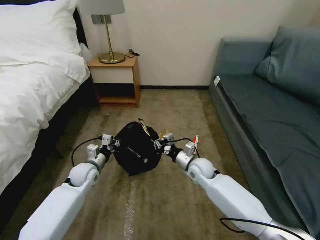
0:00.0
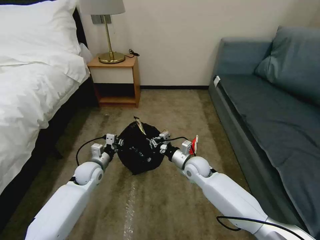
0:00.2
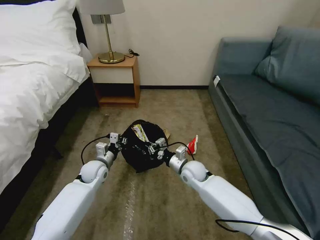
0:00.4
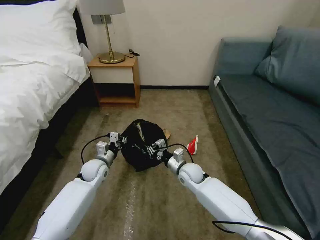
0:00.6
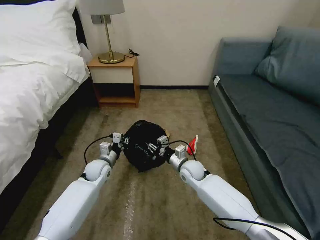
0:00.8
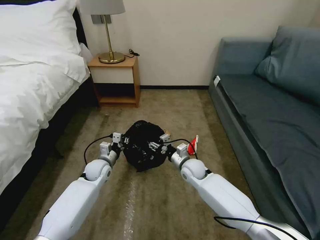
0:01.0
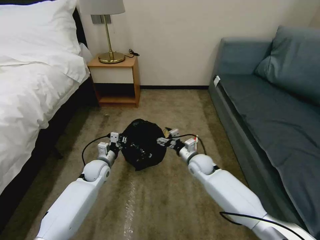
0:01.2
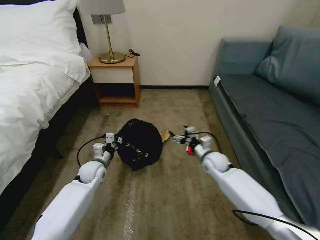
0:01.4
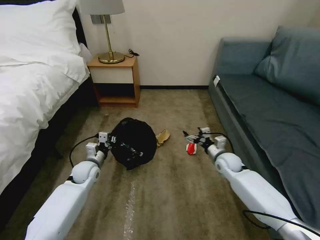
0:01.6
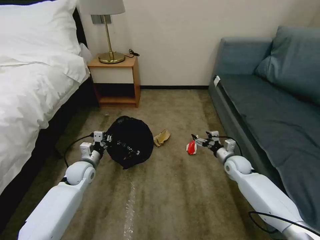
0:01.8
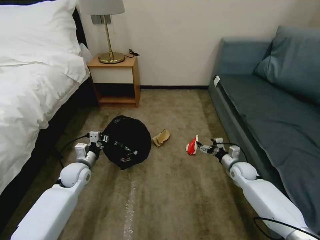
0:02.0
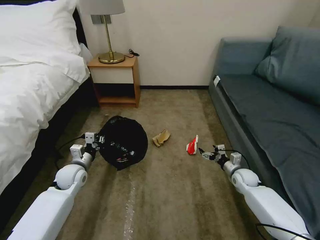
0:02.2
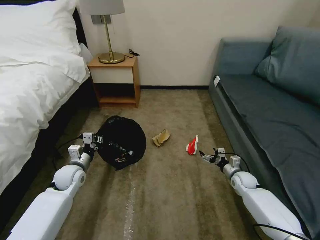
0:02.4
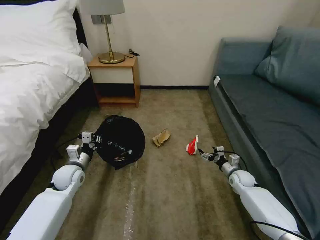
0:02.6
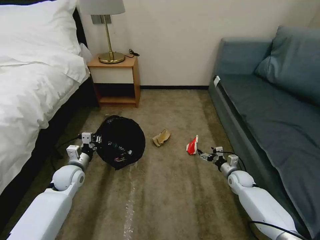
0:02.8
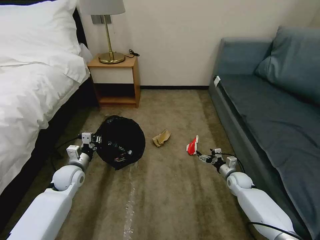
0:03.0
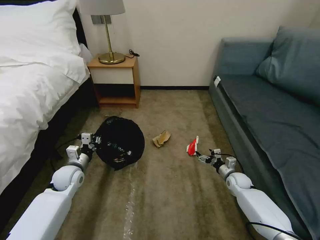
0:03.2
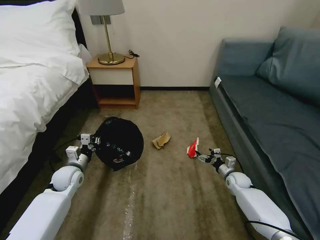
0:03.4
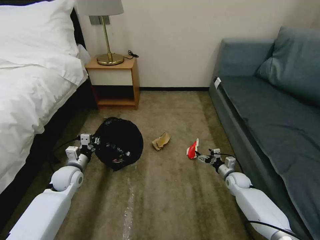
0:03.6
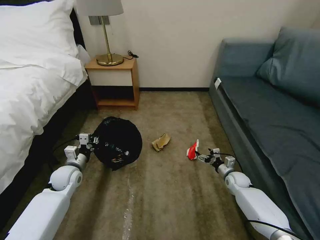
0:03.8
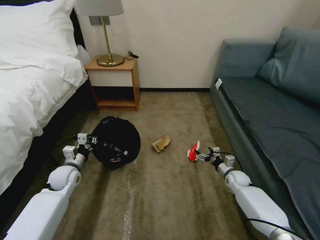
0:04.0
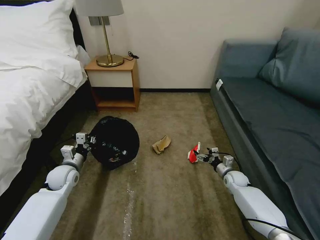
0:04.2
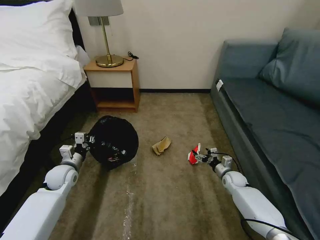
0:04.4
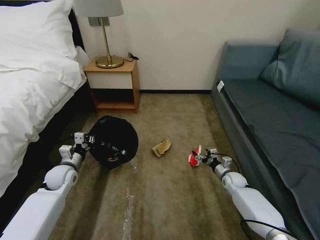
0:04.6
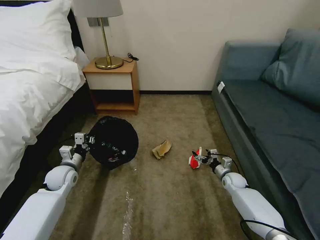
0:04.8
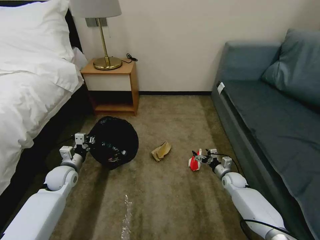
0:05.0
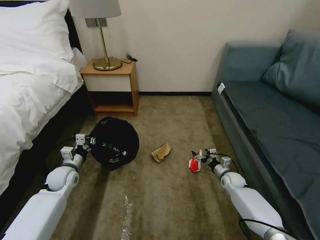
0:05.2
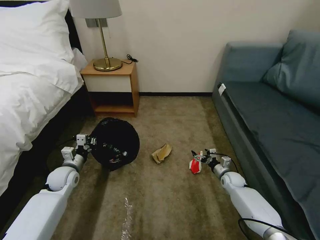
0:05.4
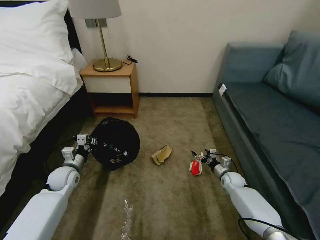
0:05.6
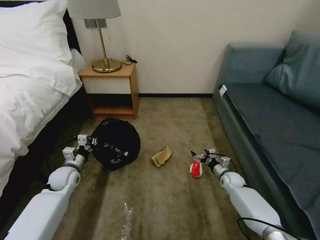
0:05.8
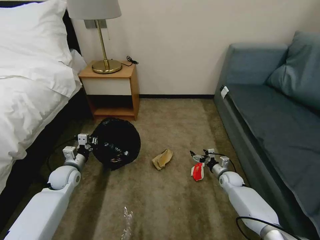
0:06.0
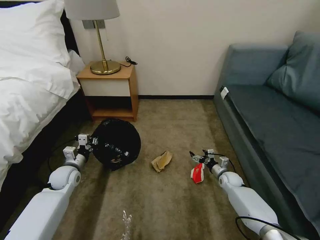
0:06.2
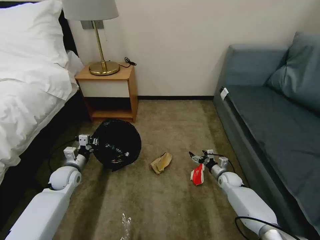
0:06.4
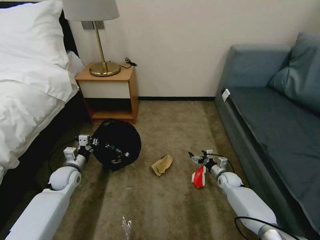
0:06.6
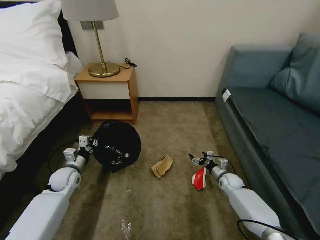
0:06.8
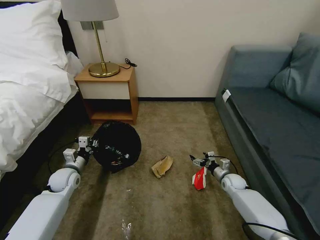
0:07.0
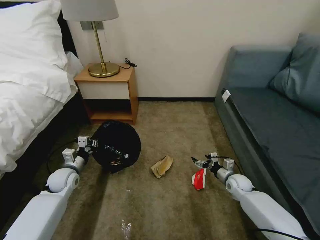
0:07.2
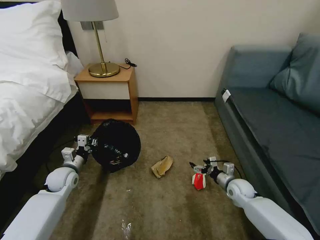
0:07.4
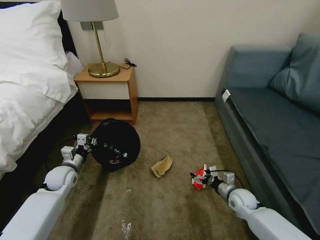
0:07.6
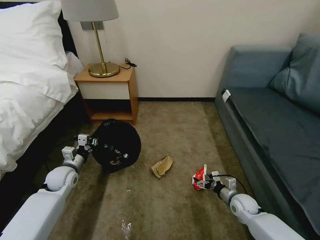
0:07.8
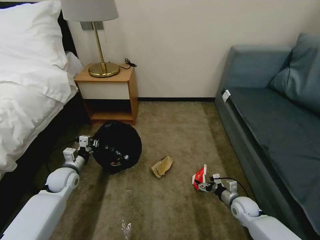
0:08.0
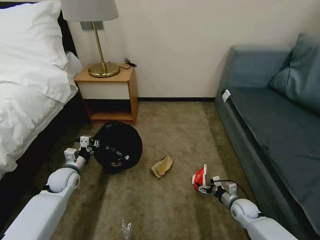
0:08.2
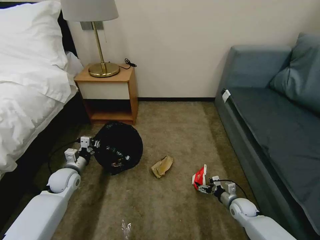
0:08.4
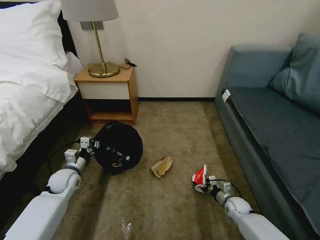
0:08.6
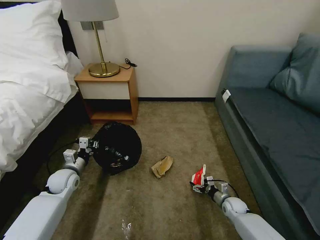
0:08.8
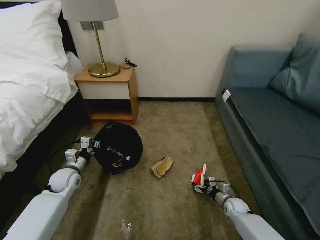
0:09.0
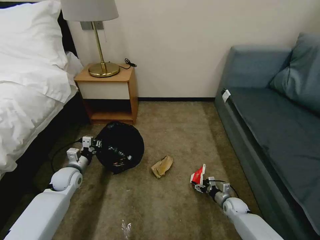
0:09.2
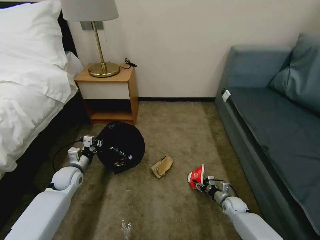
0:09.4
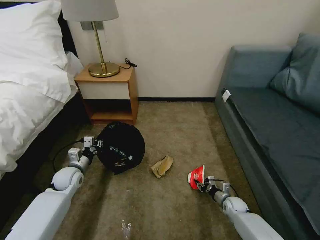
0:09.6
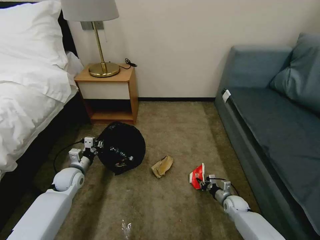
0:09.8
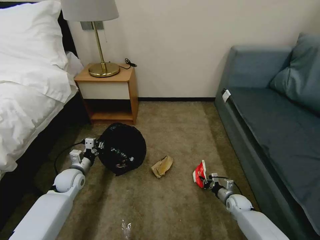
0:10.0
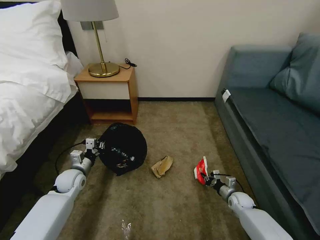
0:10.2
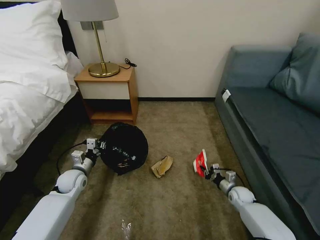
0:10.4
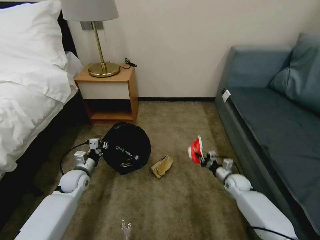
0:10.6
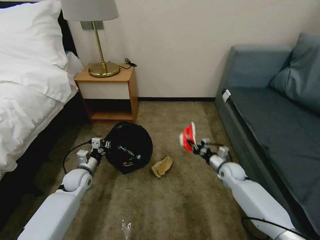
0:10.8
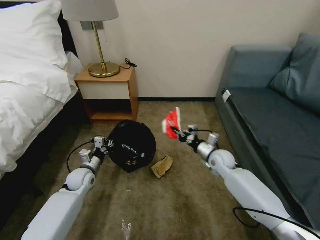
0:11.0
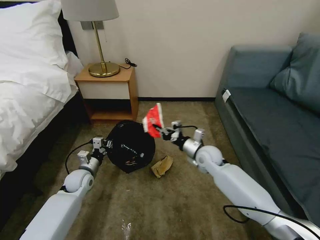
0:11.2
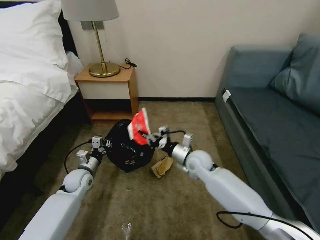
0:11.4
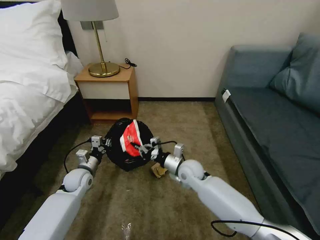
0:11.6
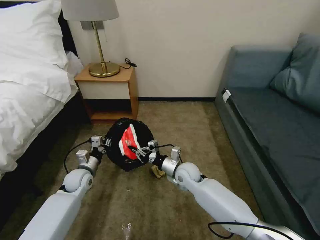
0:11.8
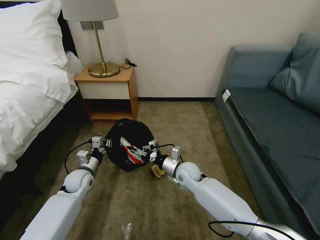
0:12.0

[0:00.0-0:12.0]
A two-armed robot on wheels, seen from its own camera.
Task of the whole recording: Pick up the trash bin, then pick up the garbage on the floor and place it into the trash bin.
0:00.0 to 0:01.6: The right gripper moves to the right, about 10 cm, and opens.
0:01.6 to 0:03.0: The left gripper shifts by approximately 5 cm. The right gripper shifts some 15 cm downward and to the right.
0:03.0 to 0:06.0: The grippers move only a little.
0:06.0 to 0:07.6: The right gripper heads backward, covering roughly 10 cm.
0:07.6 to 0:09.0: The right gripper is displaced downward by roughly 10 cm.
0:09.0 to 0:10.4: The right gripper ends up approximately 5 cm from where it was, and closes its fingers.
0:10.4 to 0:12.0: The right gripper moves to the left and upward, some 30 cm, and opens up.

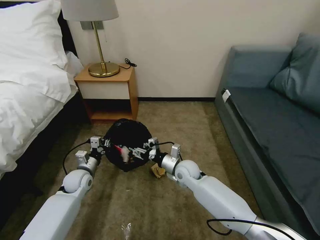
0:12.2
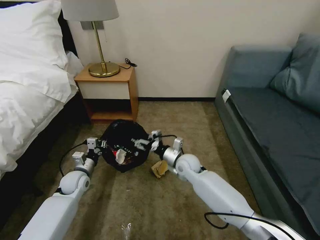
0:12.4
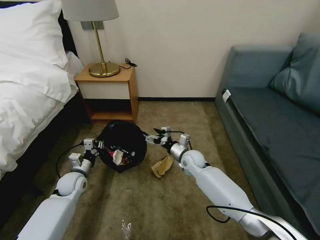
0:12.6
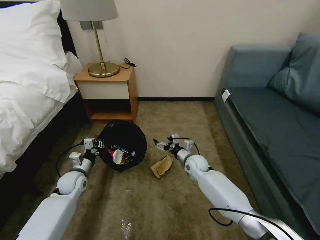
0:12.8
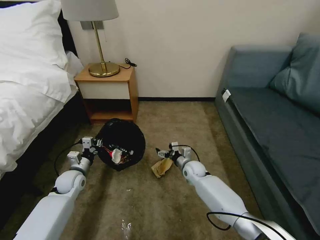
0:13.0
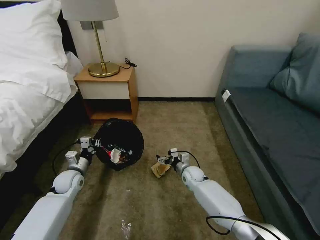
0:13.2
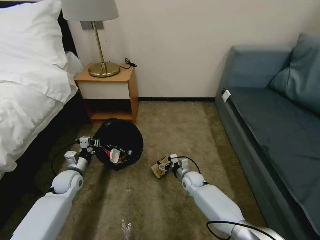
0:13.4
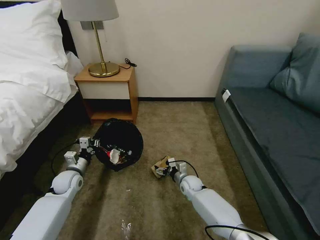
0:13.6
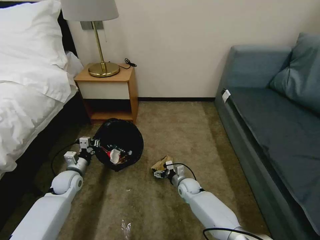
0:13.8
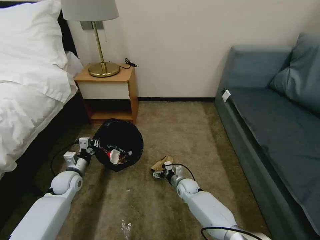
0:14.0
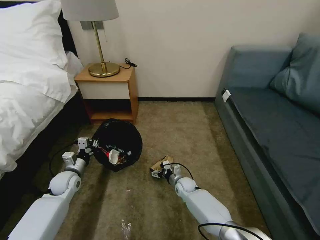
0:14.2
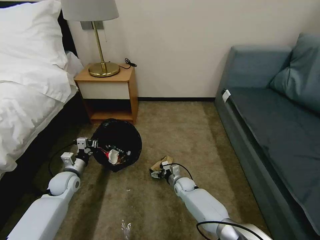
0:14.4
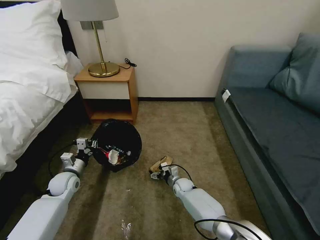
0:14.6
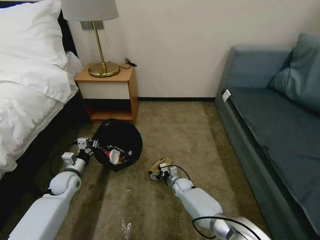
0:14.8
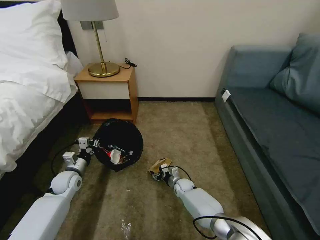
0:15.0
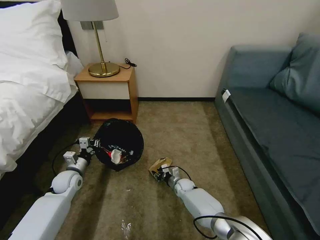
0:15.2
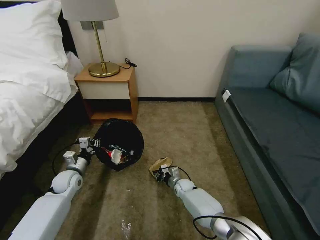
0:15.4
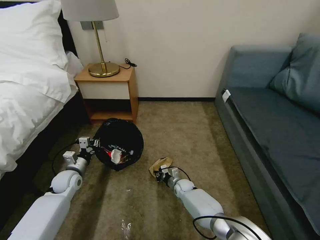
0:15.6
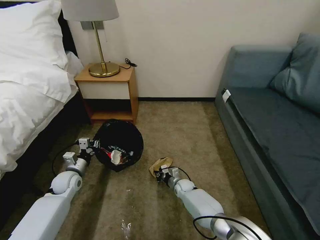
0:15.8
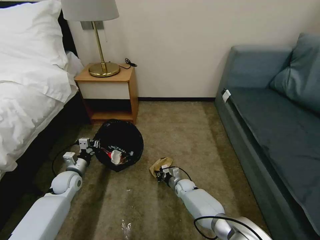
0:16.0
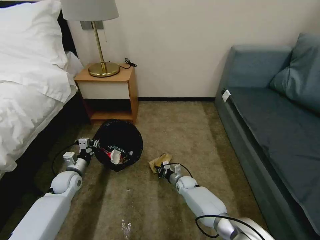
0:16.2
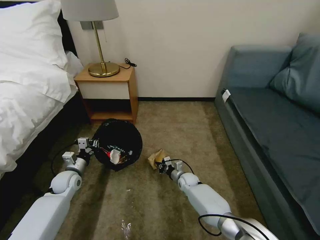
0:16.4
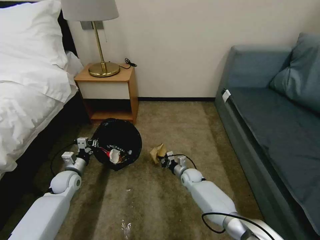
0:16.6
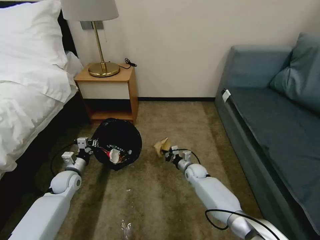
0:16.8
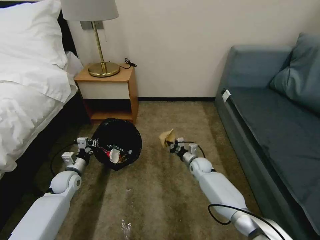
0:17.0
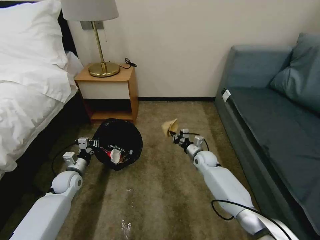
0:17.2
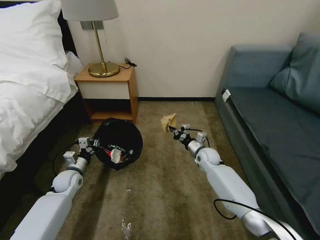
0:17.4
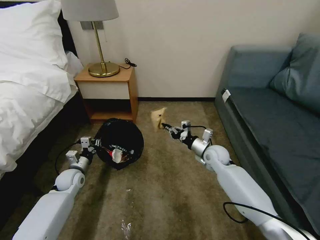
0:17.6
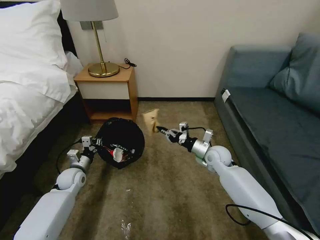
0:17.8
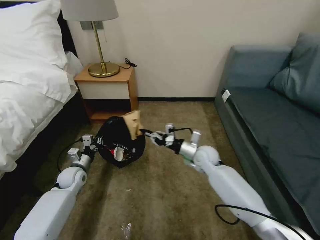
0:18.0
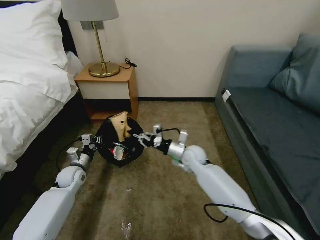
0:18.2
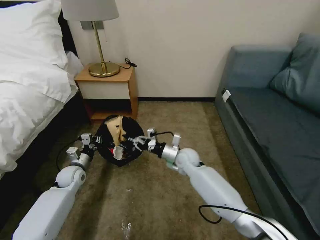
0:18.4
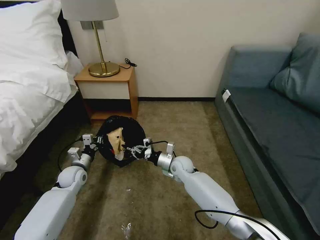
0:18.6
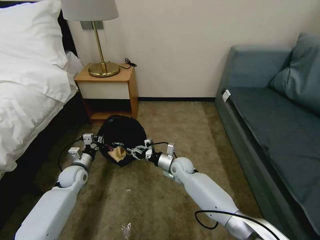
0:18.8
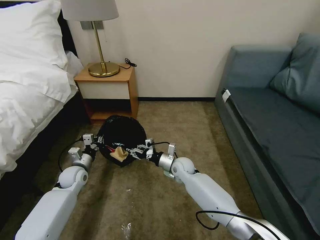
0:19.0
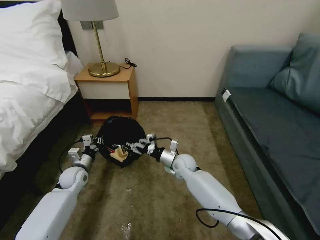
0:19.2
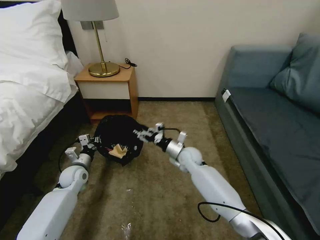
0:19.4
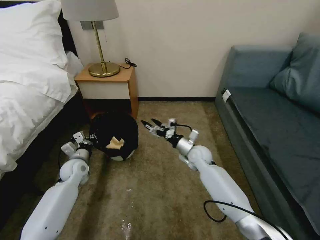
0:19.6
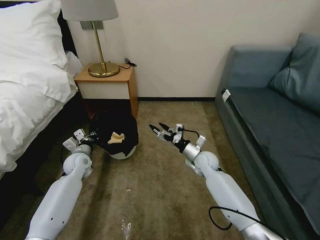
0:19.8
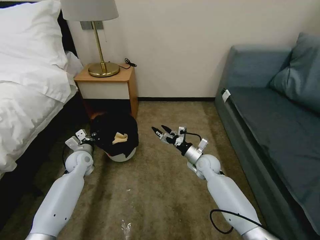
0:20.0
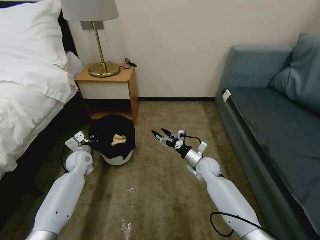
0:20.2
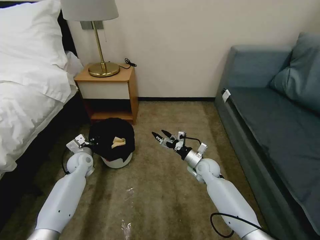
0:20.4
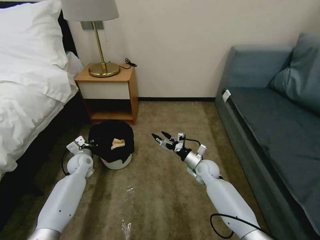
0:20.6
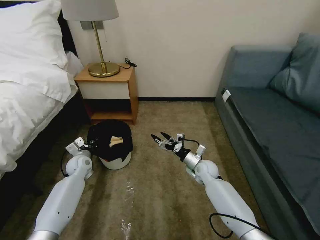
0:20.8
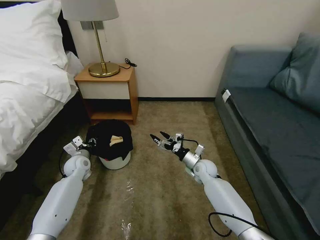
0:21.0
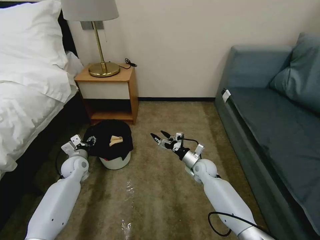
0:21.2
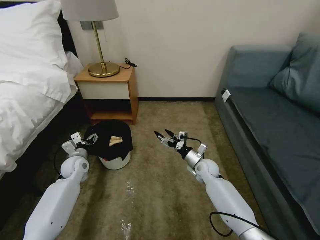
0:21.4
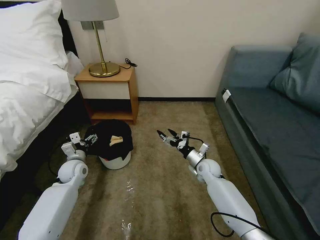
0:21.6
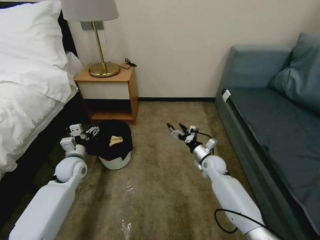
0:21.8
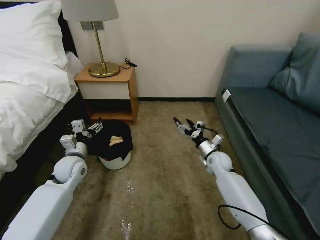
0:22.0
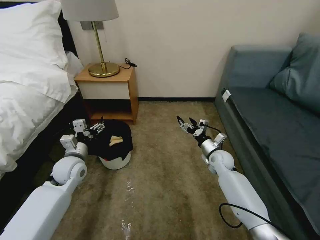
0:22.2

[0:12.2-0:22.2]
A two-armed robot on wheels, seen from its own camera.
Task of the whole recording: Pick up the trash bin, then pick up the garbage on the floor and place it into the trash bin.
0:12.2 to 0:13.6: The right gripper moves downward, some 15 cm, and opens.
0:13.6 to 0:15.0: The right gripper goes some 5 cm downward, and closes its fingers.
0:15.0 to 0:16.4: The right gripper closes.
0:16.4 to 0:18.0: The right gripper moves upward, about 20 cm.
0:18.0 to 0:19.4: The right gripper goes roughly 5 cm to the left, and opens its fingers.
0:19.4 to 0:20.8: The right gripper shifts about 10 cm to the right and downward, while the left gripper shifts about 5 cm forward.
0:20.8 to 0:22.2: The left gripper shifts some 15 cm upward and backward, and opens; the right gripper shifts approximately 5 cm to the right.
